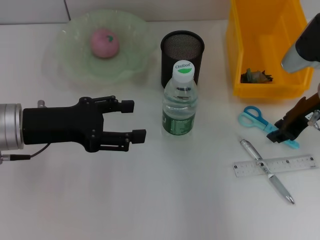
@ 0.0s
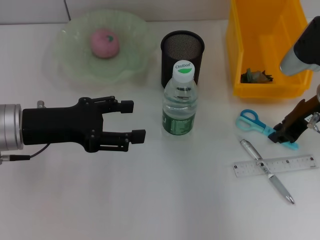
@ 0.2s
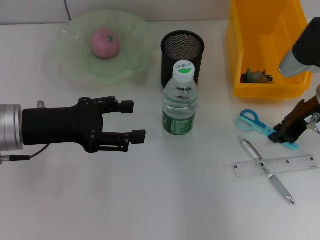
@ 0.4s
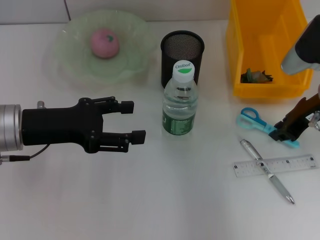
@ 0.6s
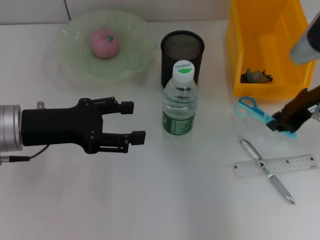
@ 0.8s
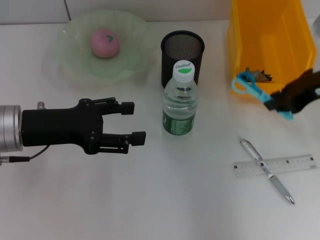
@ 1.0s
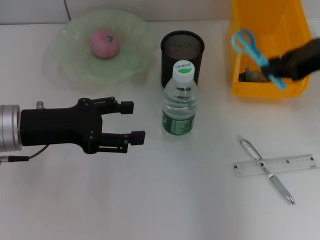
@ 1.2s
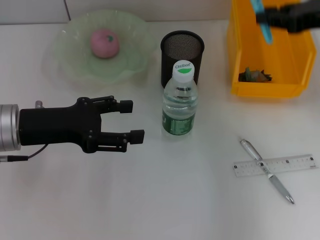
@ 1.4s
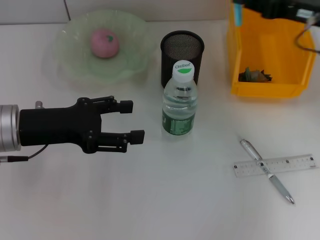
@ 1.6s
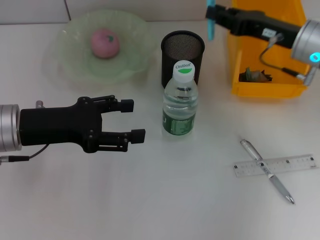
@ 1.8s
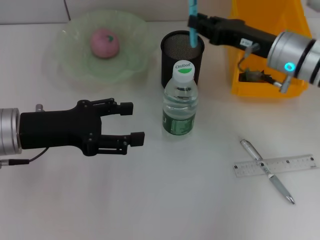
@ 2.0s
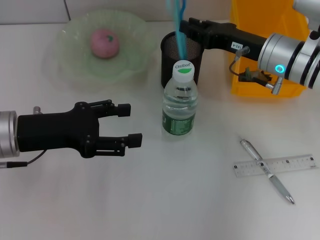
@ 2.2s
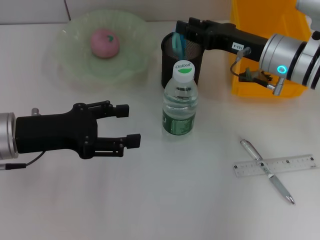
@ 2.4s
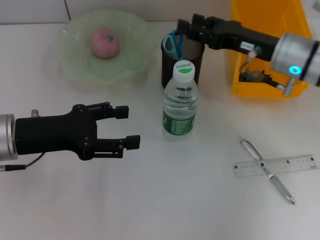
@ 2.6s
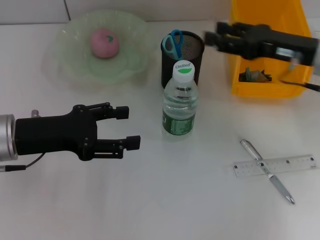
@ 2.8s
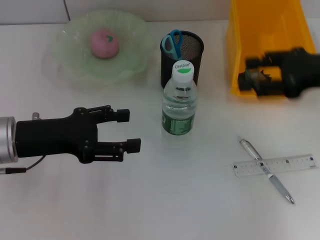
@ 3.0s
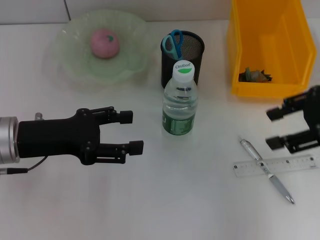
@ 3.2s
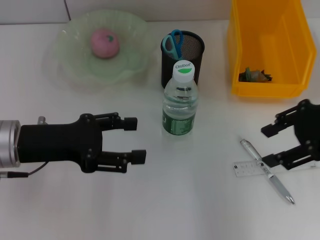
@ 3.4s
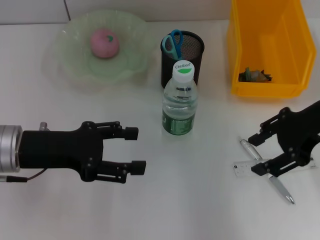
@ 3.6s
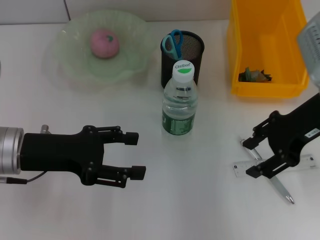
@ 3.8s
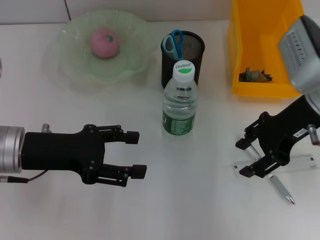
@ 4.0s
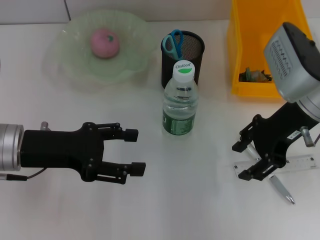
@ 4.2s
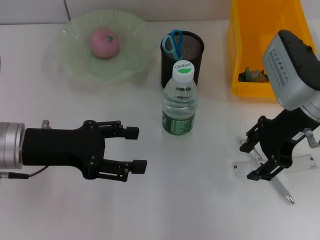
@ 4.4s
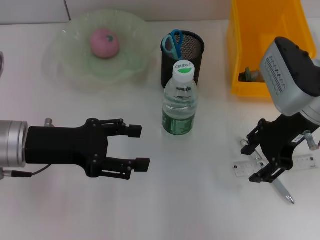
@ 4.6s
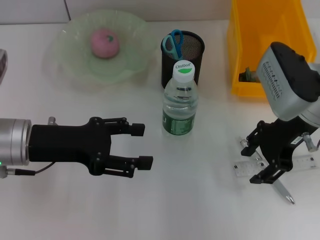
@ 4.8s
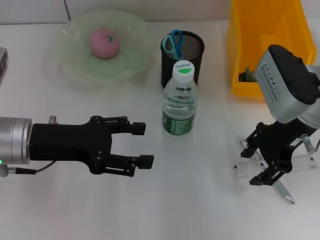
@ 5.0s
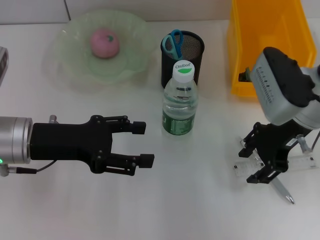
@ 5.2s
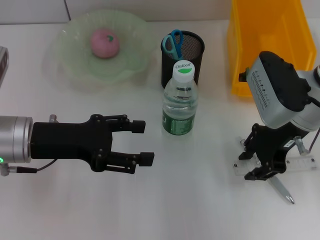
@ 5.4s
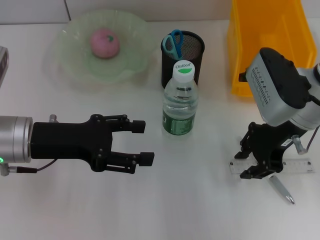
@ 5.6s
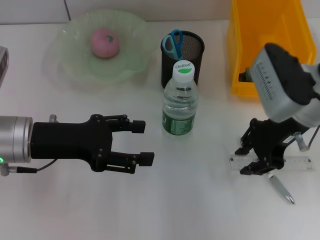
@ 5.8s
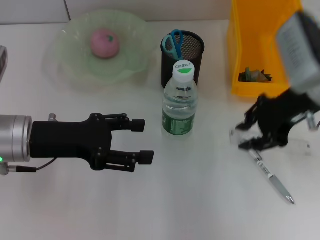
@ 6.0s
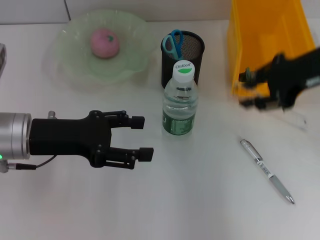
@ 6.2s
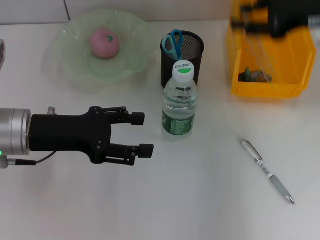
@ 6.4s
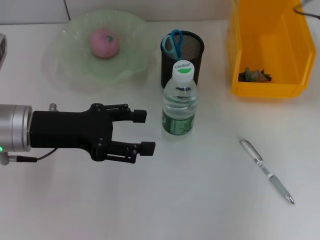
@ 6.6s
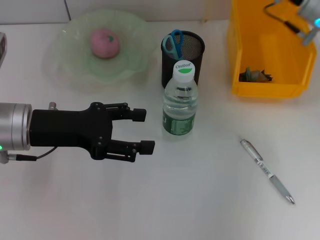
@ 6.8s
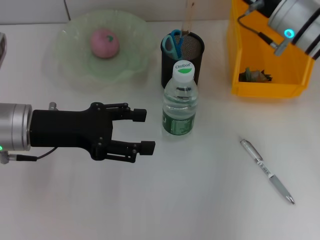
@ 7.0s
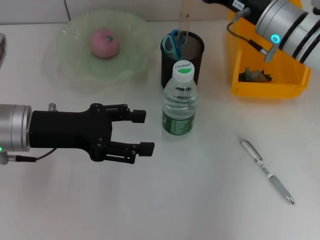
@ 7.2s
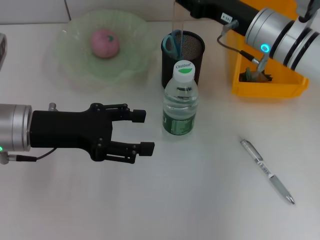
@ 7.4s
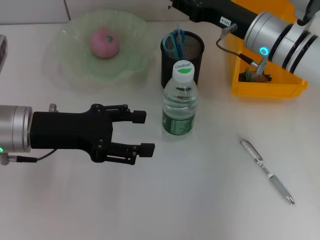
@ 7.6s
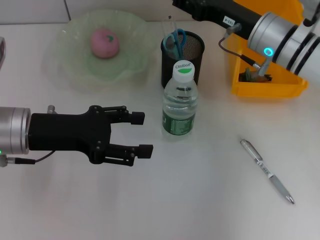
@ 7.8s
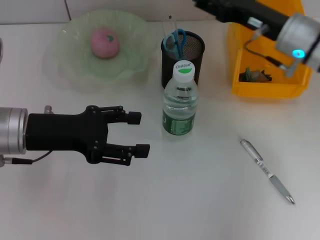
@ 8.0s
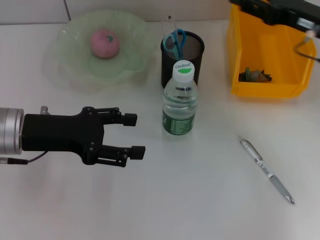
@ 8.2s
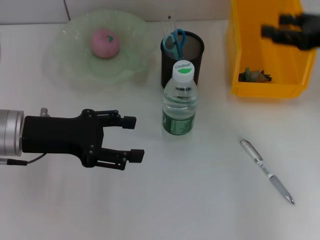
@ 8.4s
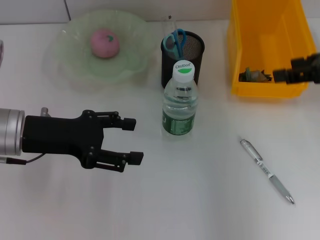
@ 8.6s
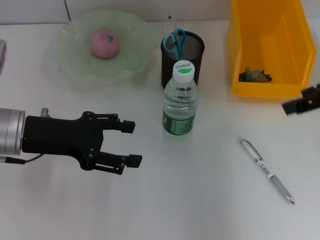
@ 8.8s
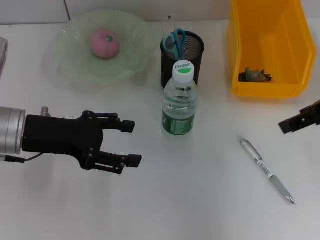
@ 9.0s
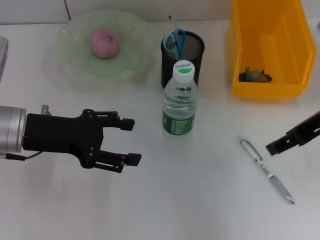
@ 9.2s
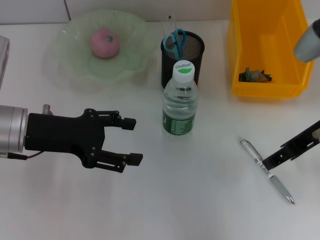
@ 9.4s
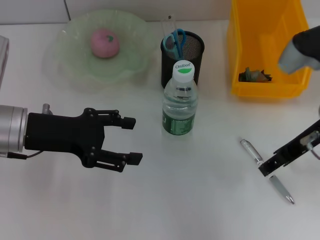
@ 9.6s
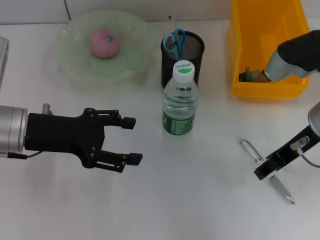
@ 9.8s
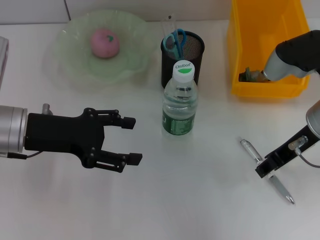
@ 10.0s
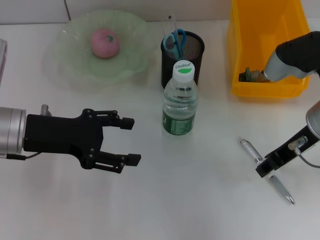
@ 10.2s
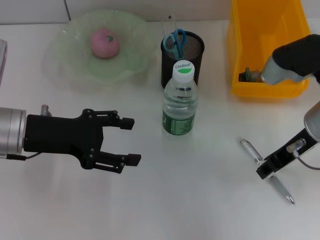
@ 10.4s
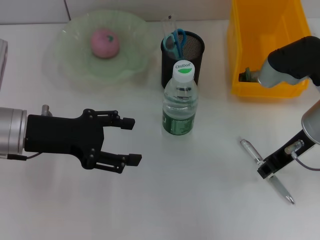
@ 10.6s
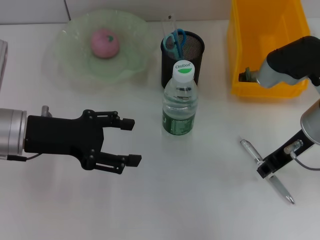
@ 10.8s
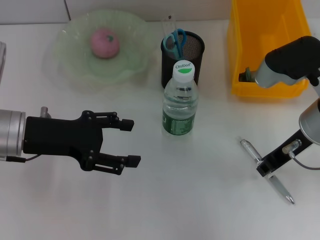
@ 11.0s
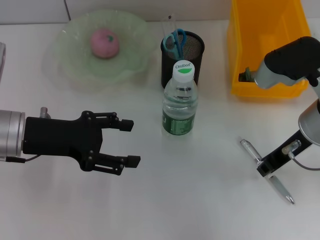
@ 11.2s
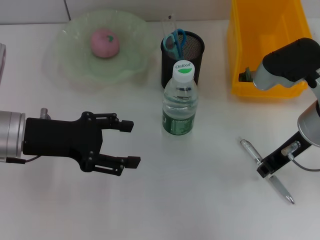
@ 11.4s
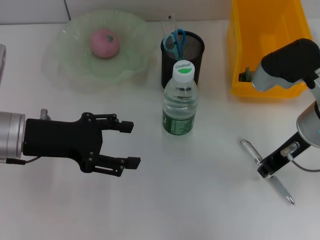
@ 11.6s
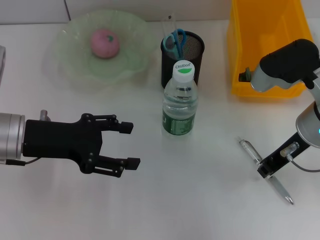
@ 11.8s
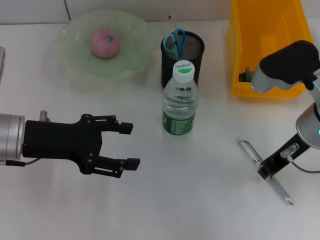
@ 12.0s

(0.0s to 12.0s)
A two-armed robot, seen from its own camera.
Step, 0.6s - 2.4s: Place the blue scissors into the pen holder with the right hand.
Step, 2.6s - 5.4s: Grab the ruler with the right hand.
Step, 5.6s - 7.6s: Place the ruler into the pen holder with the right hand.
1.6s - 3.0s: The right gripper is displaced backward by some 5 cm, goes to the left and returns, about 5 cm each way, and opens.
3.0s - 4.4s: The right gripper is displaced to the left by some 10 cm.
4.4s - 6.0s: The grippers stay close to where they were, moving slightly.
6.0s - 7.6s: The right gripper travels forward and downward by about 10 cm.
7.6s - 9.0s: The right gripper heads upward, backward and to the right, covering about 20 cm, and opens its fingers.
9.0s - 10.4s: The right gripper is displaced downward and to the left by about 10 cm.
10.4s - 12.0s: Neither gripper changes place.

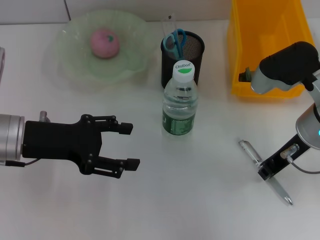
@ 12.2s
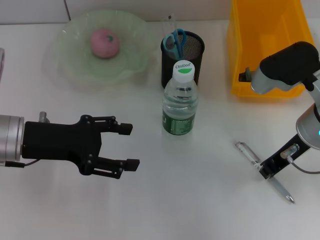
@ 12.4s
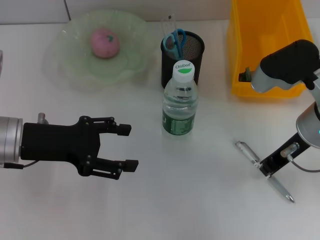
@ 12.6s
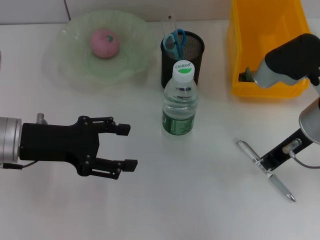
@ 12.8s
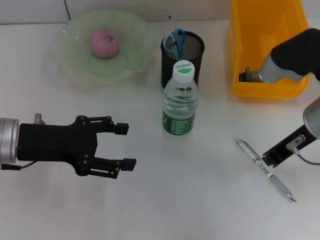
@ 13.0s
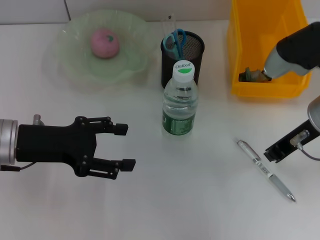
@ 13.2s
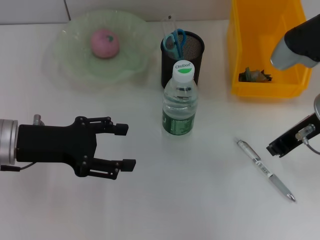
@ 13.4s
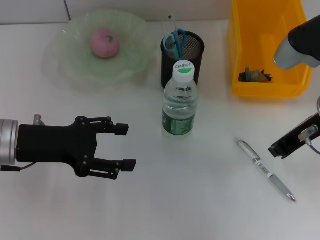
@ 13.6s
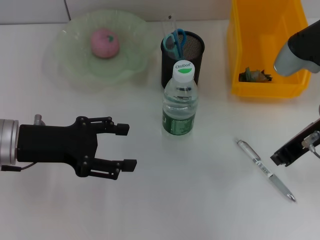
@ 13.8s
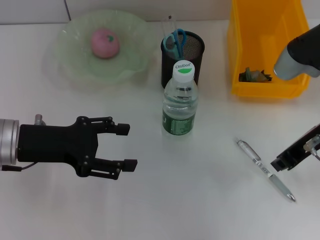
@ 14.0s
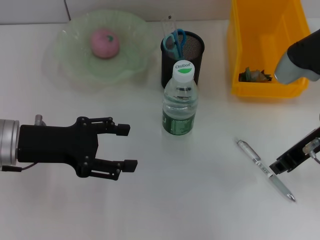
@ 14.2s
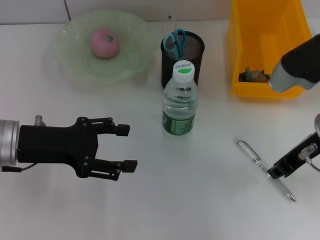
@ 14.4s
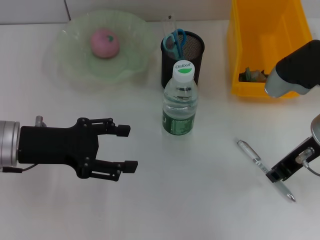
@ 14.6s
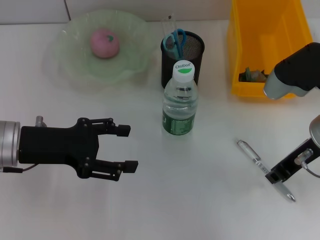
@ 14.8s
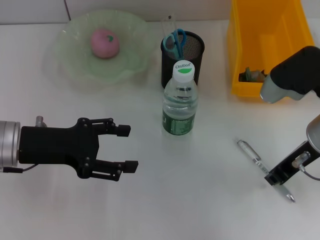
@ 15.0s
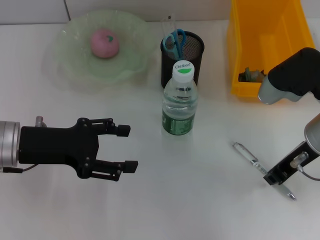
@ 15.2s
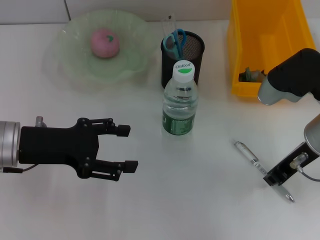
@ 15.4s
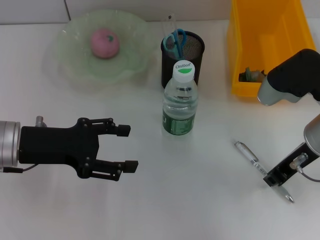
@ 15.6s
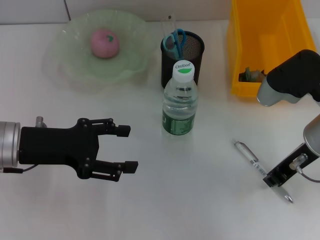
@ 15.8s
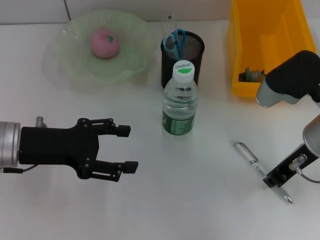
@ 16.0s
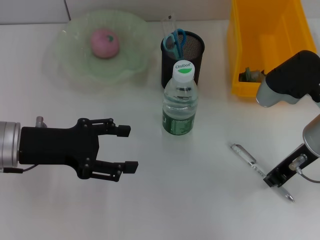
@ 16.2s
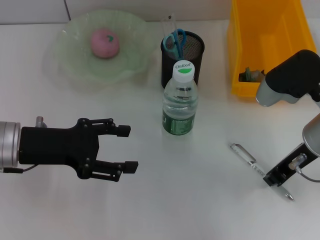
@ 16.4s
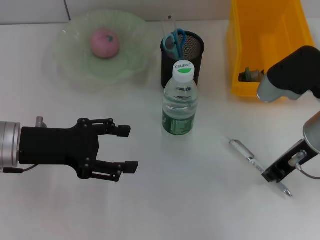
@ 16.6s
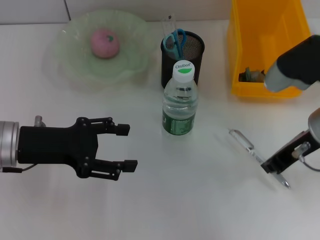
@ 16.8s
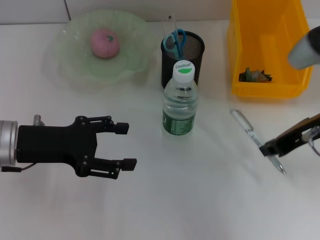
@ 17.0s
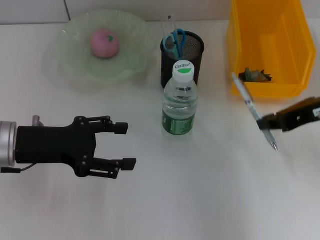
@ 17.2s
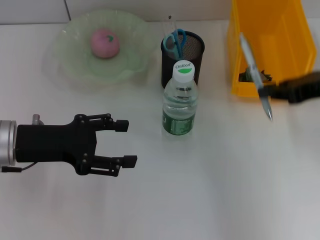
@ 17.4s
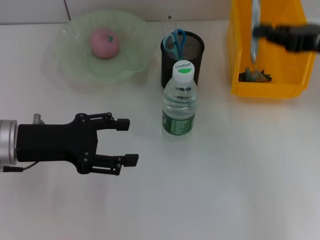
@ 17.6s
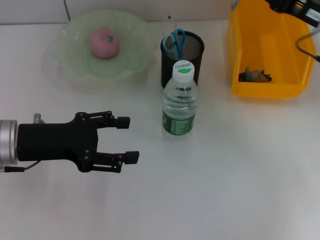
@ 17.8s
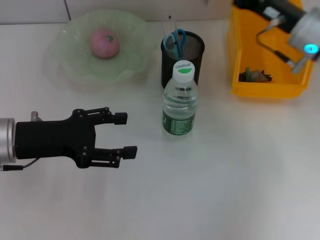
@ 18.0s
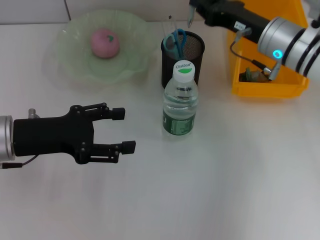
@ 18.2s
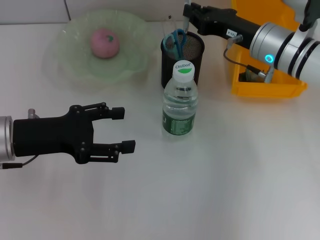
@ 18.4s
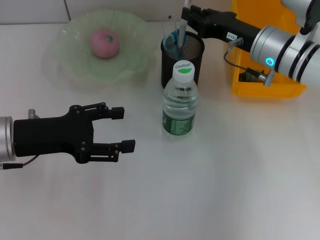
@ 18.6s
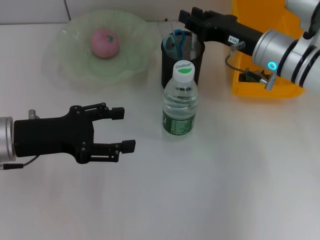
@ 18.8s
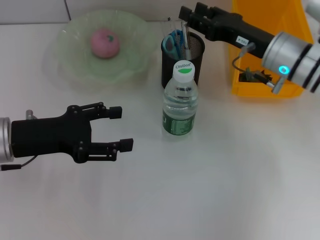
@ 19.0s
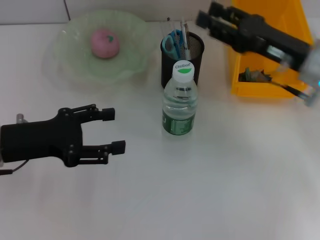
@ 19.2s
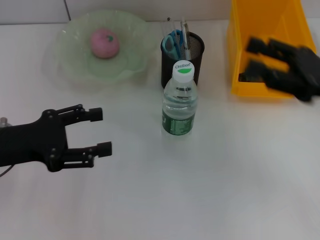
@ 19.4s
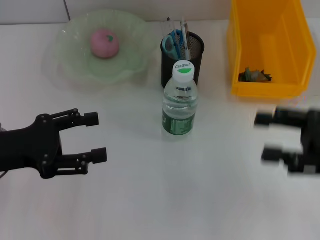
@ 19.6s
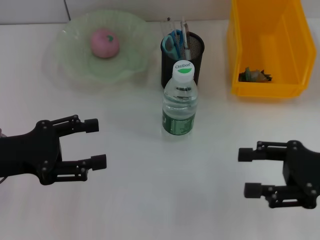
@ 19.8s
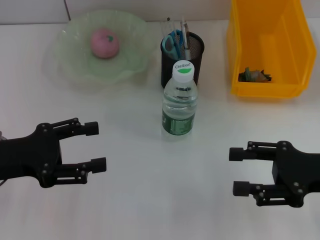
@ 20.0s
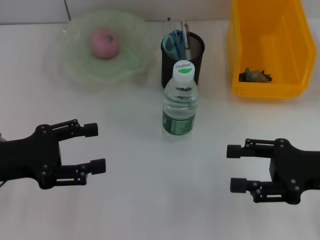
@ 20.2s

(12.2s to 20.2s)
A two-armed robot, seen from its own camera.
Step, 12.2s - 16.4s: Grab the gray spring-action pen with the right hand.
Step, 16.6s - 18.8s: Place the gray spring-action pen into the pen holder with the right hand.
12.2s - 17.0s: There are only small adjustments of the grippers.
17.0s - 18.6s: The right gripper moves forward and downward, about 10 cm.
18.6s - 20.2s: The right gripper heads backward and to the right, covering approximately 20 cm, and opens. Meanwhile the left gripper changes place by about 5 cm.

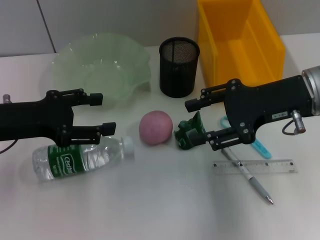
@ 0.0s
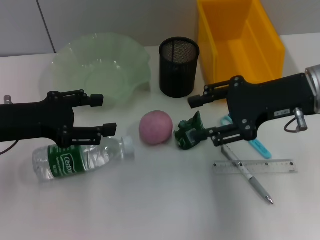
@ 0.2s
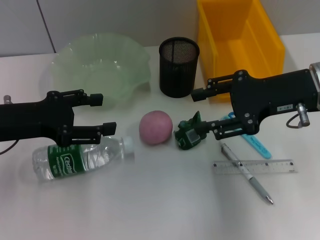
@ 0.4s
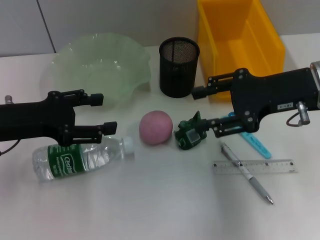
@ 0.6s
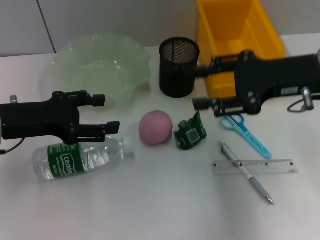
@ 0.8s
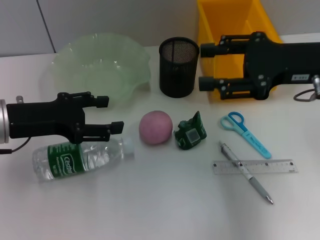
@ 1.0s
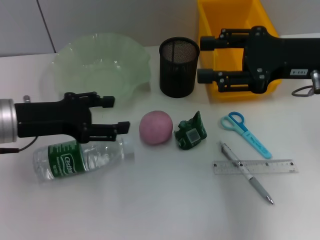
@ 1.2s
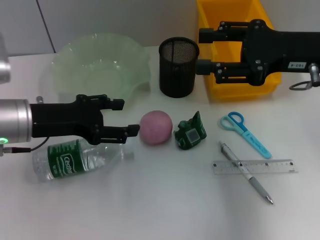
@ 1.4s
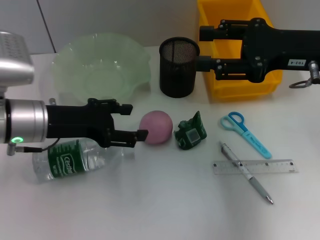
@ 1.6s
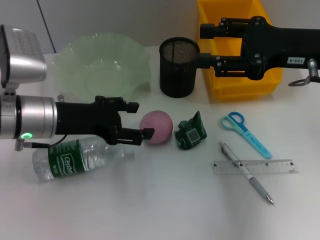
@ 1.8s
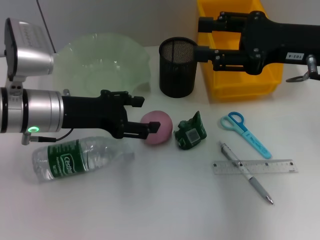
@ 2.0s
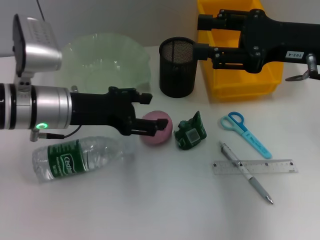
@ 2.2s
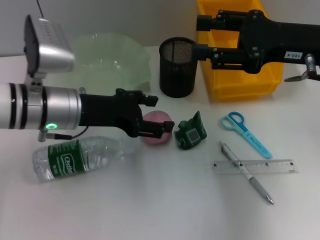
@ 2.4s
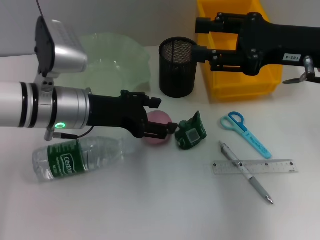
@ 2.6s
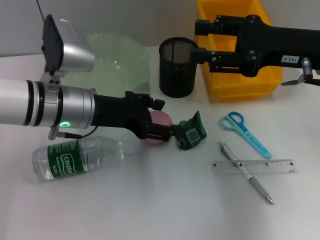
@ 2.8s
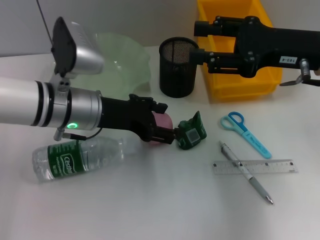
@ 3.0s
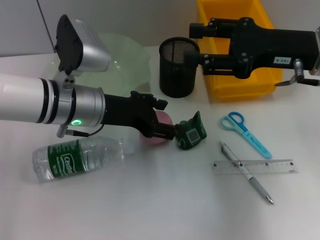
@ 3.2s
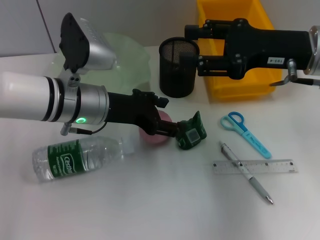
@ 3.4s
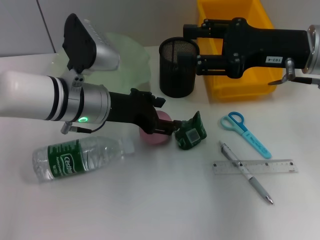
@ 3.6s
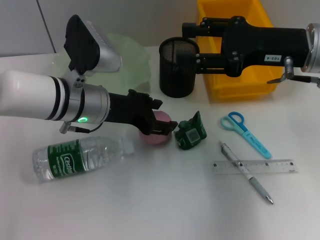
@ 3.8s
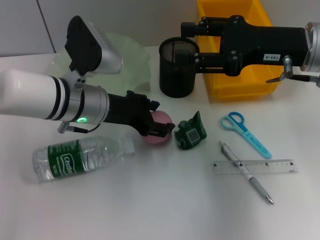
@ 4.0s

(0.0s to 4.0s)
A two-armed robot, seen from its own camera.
1.4s - 2.6s: The left gripper travels to the right by about 5 cm.
2.6s - 4.0s: The grippers make only small movements.
